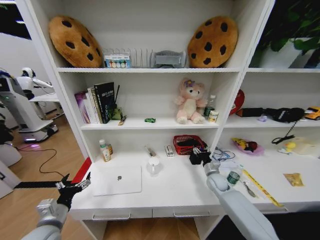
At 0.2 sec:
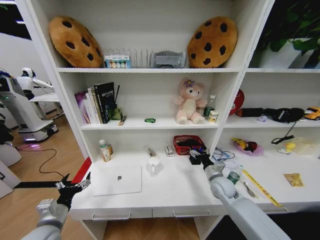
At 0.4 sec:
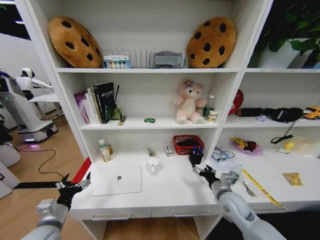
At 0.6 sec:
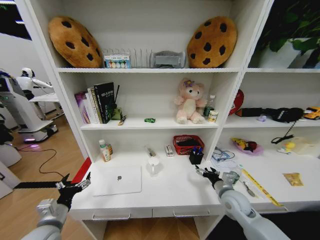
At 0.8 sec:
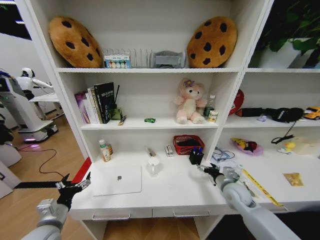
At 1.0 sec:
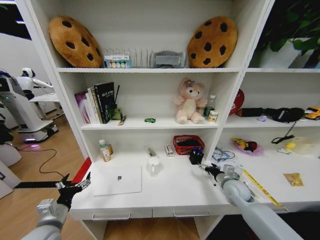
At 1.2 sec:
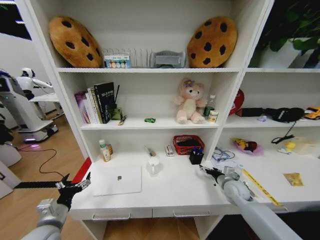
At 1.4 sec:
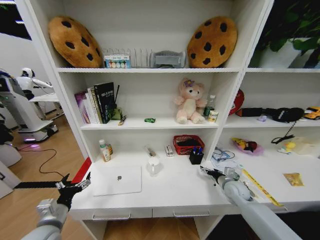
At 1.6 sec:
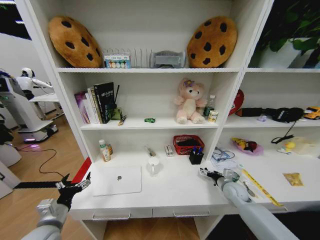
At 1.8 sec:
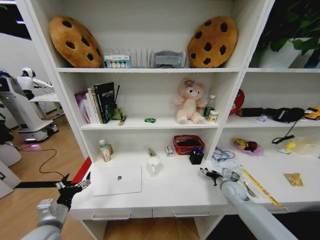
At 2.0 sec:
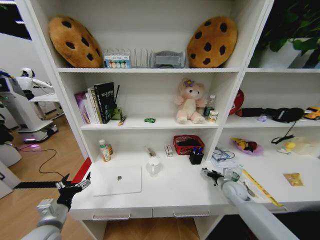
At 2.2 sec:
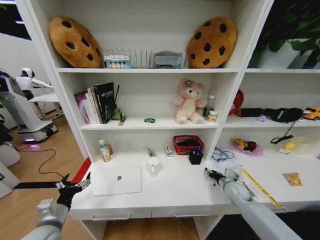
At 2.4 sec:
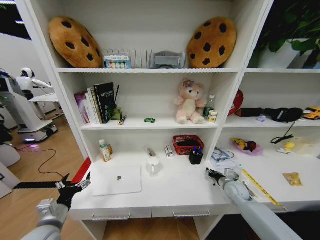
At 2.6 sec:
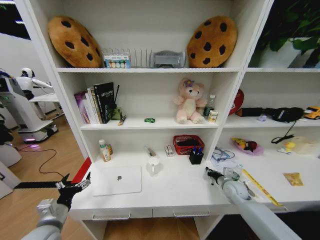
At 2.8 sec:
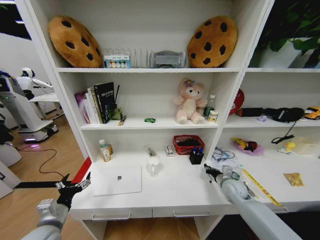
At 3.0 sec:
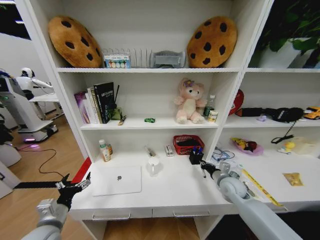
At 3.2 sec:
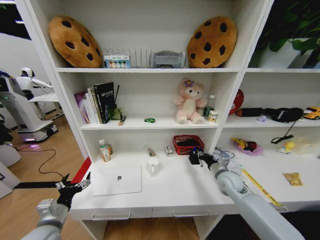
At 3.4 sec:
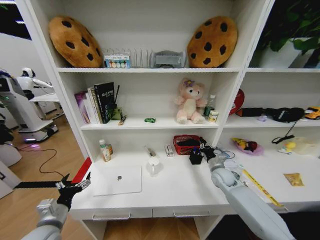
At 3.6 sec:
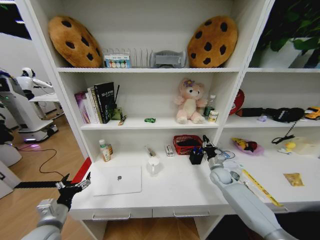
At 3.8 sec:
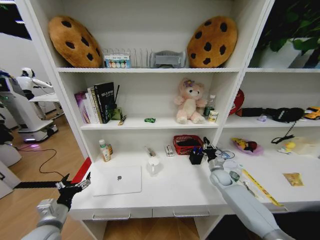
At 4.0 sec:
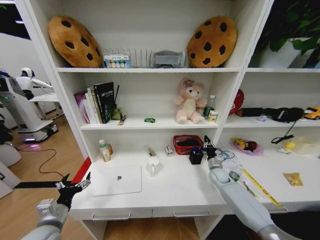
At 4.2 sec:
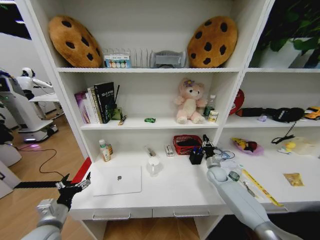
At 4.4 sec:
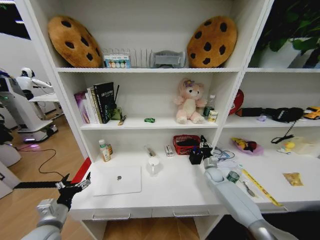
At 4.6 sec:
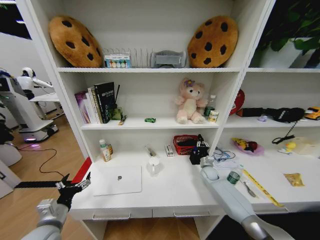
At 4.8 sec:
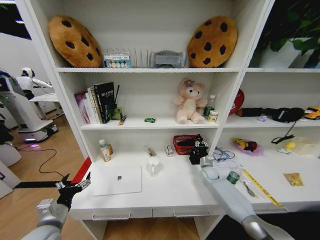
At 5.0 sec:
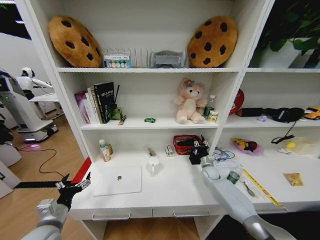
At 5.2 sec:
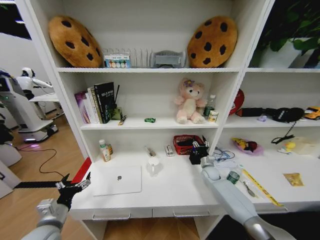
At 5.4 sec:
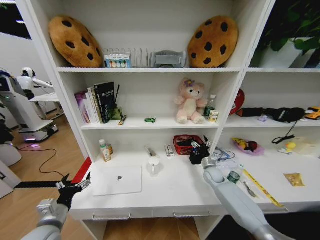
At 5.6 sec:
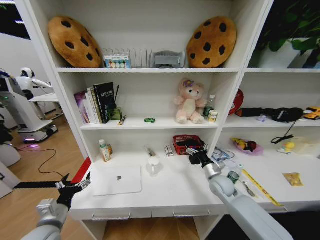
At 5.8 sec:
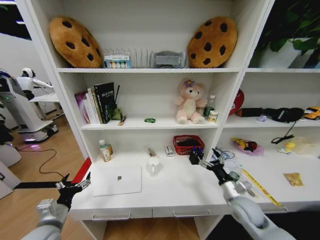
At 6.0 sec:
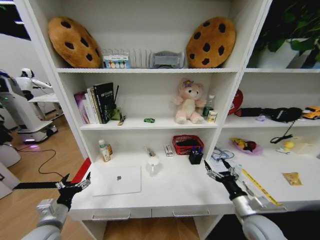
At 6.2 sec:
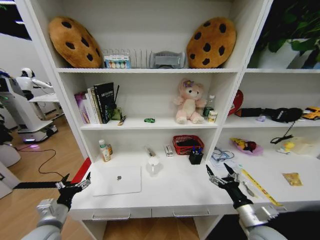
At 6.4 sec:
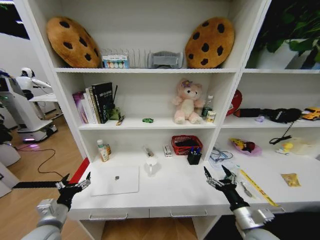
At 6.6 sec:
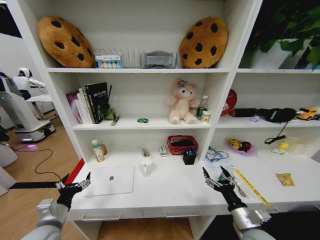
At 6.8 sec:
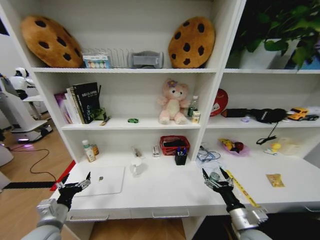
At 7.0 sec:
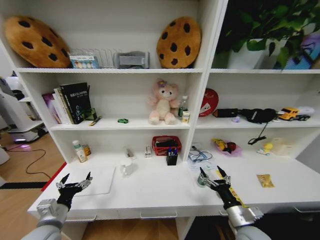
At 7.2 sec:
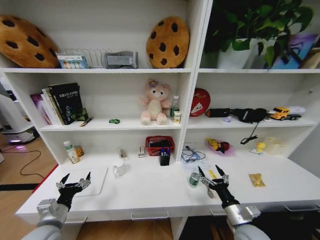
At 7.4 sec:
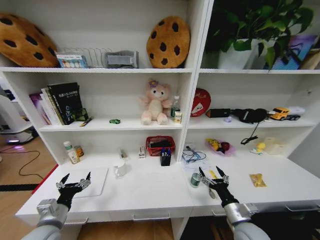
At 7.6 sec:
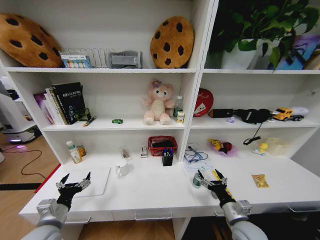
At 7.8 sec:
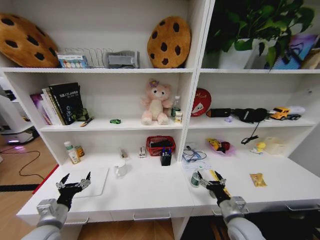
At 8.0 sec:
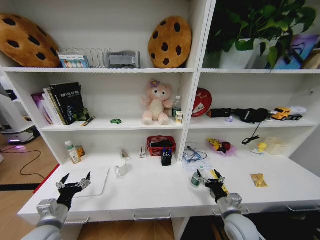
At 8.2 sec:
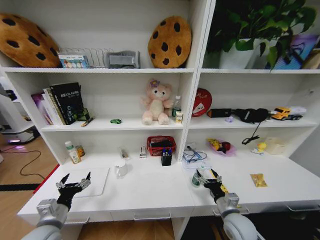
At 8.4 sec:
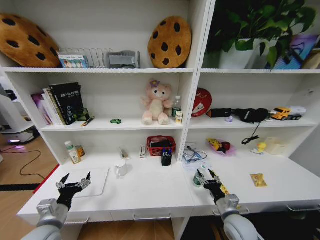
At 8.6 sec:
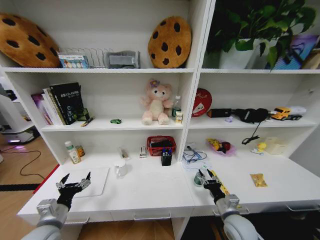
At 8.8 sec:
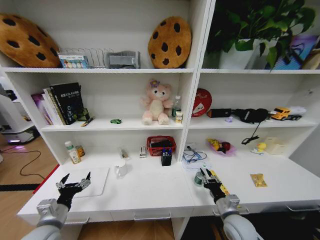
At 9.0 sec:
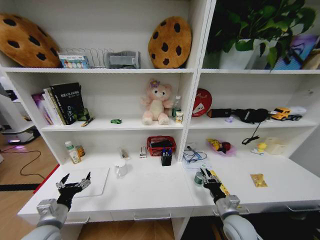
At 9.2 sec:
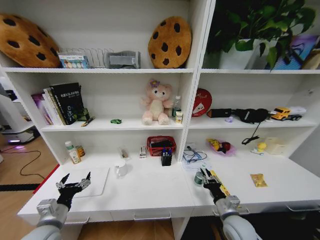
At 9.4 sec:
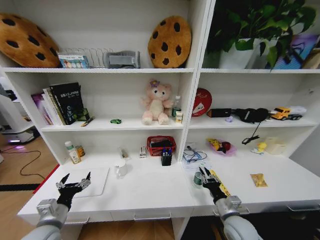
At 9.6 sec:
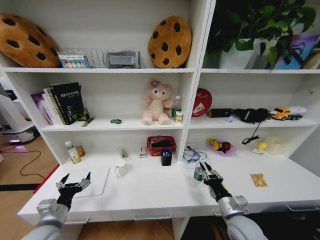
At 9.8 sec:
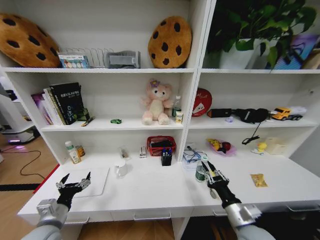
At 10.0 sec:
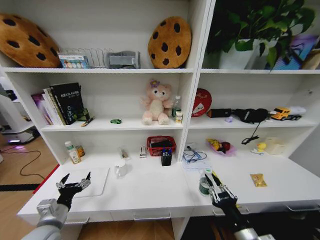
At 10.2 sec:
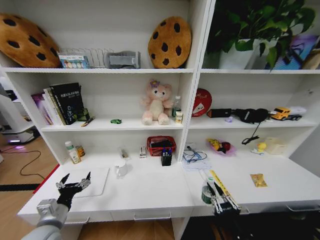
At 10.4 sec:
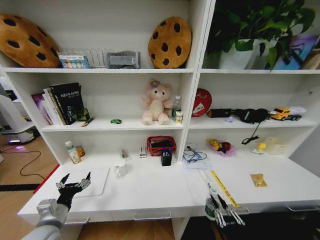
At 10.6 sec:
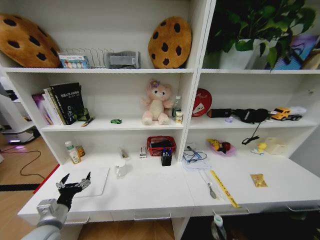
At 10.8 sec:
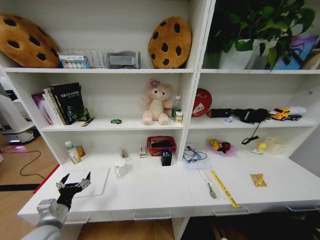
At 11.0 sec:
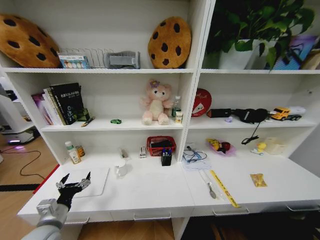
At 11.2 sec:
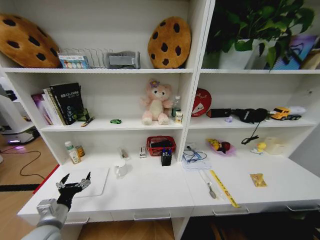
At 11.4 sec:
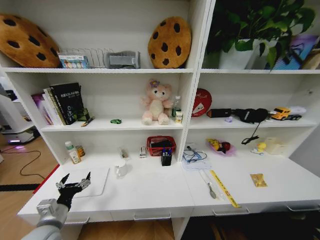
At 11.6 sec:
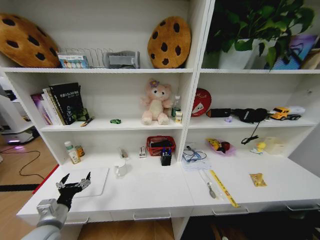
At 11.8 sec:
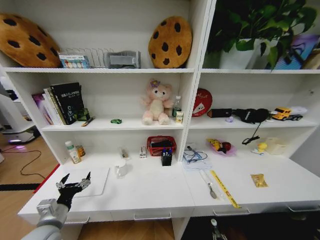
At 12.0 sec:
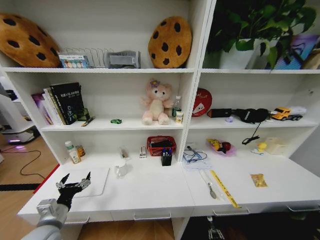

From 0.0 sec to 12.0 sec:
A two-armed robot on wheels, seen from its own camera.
Task of the whole recording: Organize the objects on the table.
From 0.0 sec to 1.6 sec: The right gripper goes about 10 cm backward and to the right, and opens.
From 1.6 sec to 3.0 sec: The right gripper ends up some 5 cm from where it was, and closes up.
From 3.0 sec to 4.4 sec: The right gripper heads forward and downward, covering roughly 15 cm.
From 4.4 sec to 6.0 sec: The right gripper goes some 25 cm backward, and opens its fingers.
From 7.6 sec to 9.0 sec: The right gripper closes its fingers.
From 9.0 sec to 10.4 sec: The right gripper shifts roughly 20 cm backward.
From 10.4 sec to 12.0 sec: The right gripper heads downward, covering some 35 cm.

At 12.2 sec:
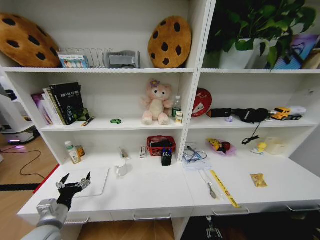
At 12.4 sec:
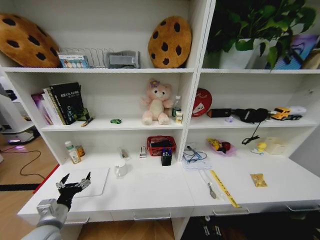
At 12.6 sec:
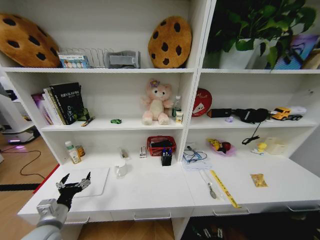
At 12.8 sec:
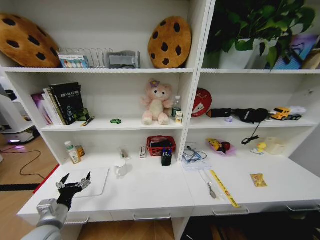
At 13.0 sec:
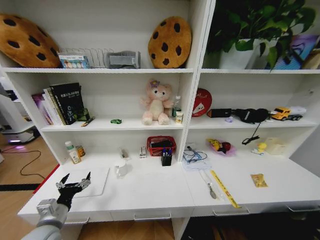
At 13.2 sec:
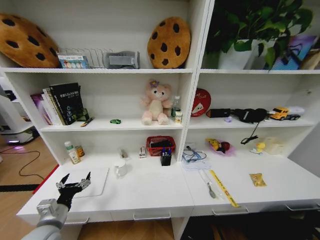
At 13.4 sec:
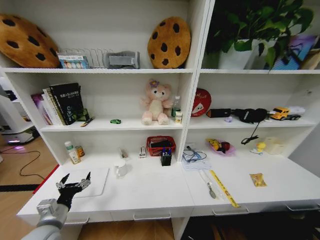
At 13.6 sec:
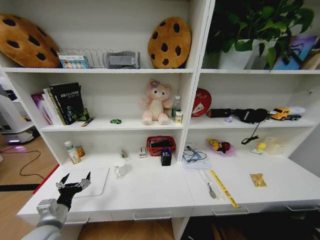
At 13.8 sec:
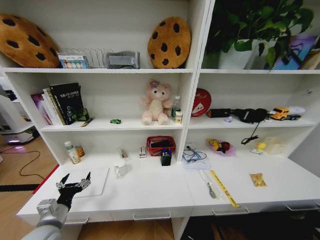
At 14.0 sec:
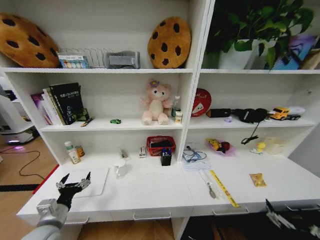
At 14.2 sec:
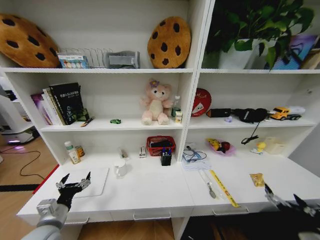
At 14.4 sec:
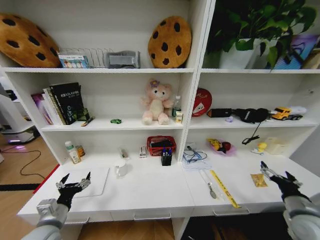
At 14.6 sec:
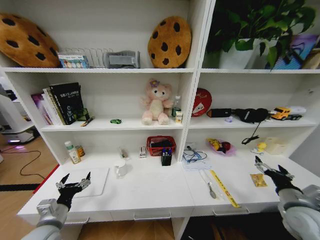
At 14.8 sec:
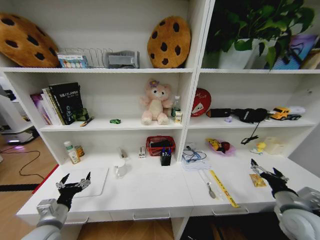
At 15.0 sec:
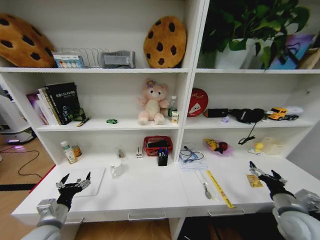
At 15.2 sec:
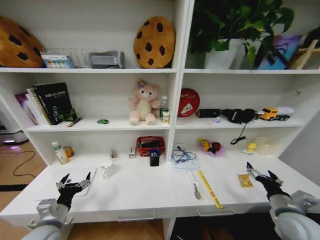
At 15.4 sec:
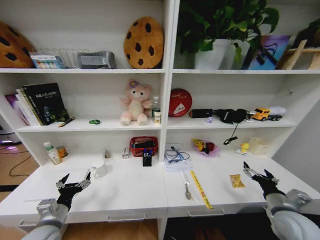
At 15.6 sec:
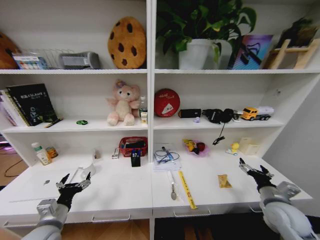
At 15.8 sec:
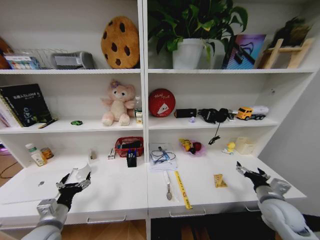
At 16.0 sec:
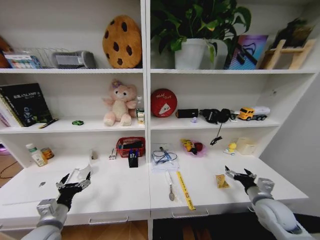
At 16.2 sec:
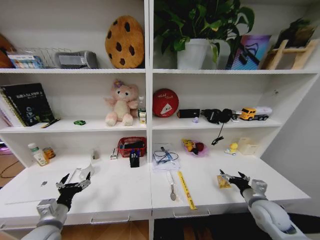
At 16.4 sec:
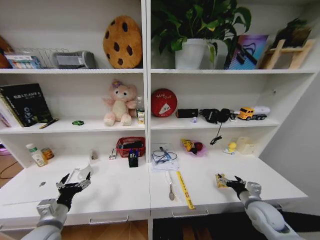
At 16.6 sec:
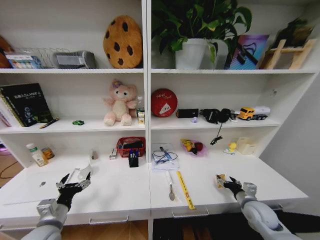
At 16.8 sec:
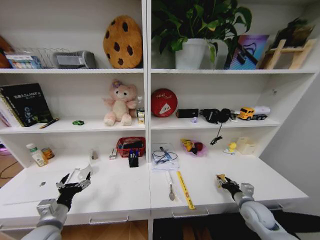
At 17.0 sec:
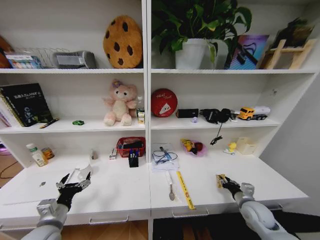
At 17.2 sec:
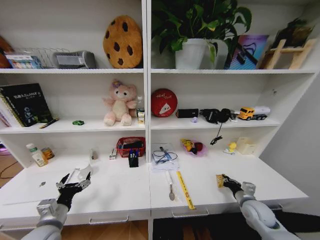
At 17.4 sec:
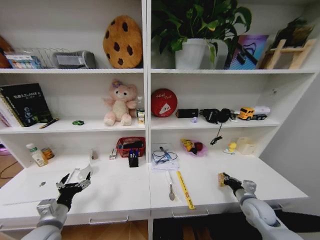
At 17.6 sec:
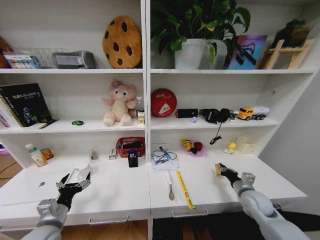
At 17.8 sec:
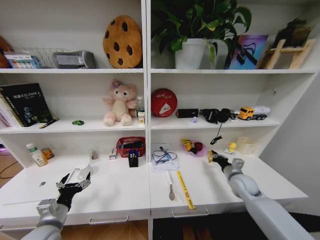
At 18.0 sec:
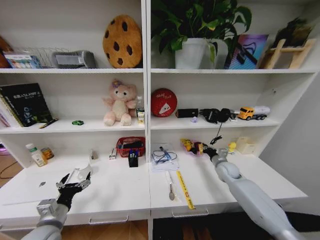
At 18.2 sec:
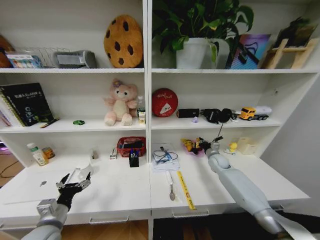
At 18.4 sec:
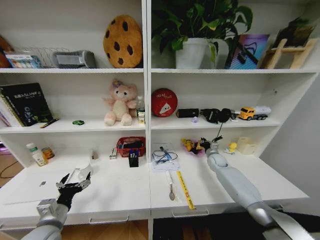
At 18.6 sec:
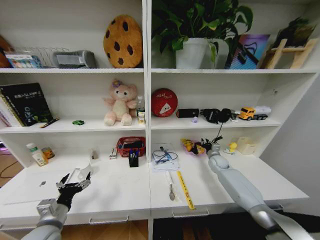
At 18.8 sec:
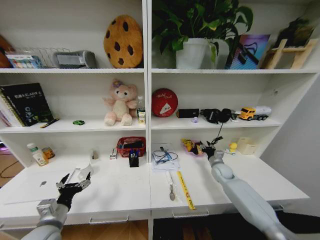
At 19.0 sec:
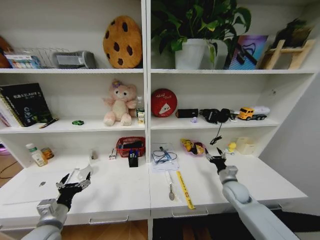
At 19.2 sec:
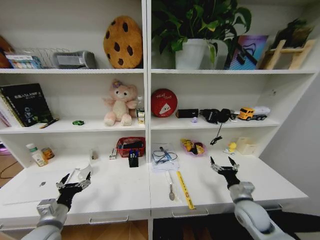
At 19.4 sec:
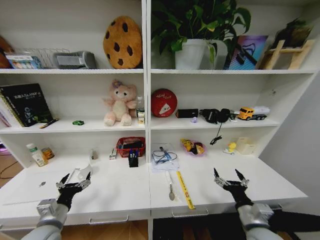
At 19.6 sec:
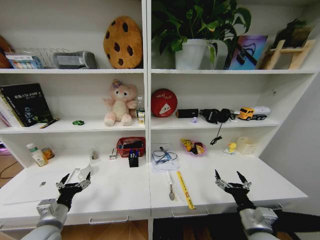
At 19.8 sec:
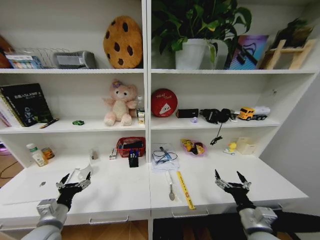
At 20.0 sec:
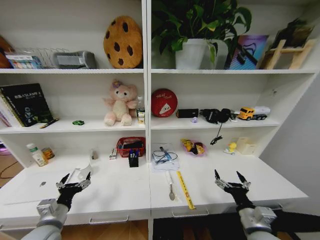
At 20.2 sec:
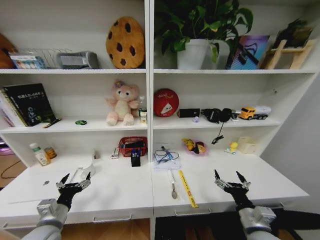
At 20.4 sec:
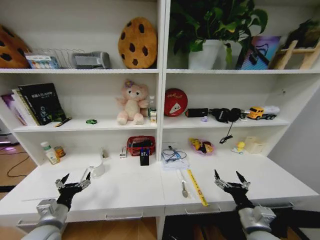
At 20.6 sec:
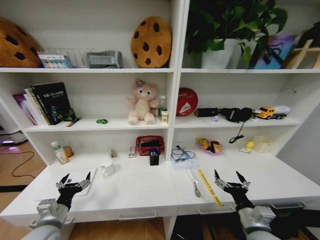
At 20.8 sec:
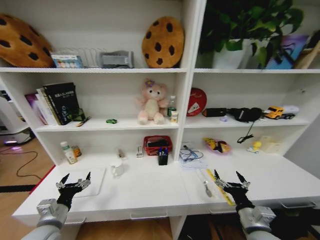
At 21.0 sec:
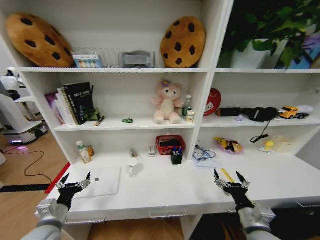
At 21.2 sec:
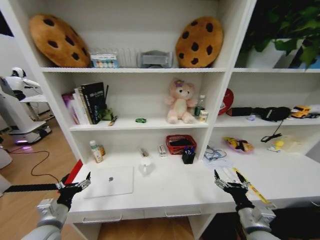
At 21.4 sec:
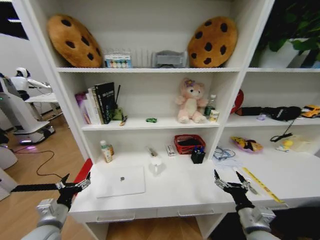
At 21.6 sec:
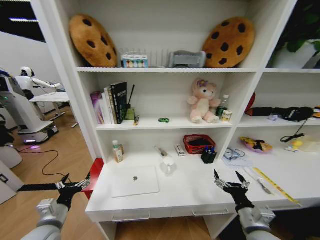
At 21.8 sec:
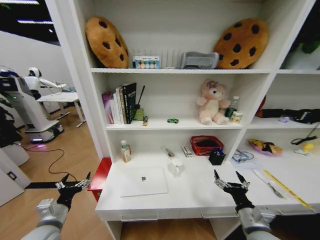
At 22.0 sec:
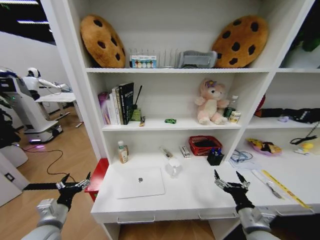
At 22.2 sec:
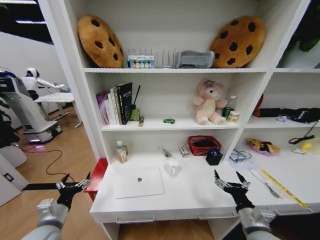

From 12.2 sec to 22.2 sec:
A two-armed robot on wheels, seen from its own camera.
Task of the whole recording: Organize the objects on the table.
From 12.2 sec to 13.6 sec: The right gripper is displaced upward and backward by approximately 30 cm, and opens.
From 13.6 sec to 15.0 sec: The right gripper is displaced forward and upward by some 35 cm.
From 15.0 sec to 16.4 sec: The right gripper travels downward and forward by approximately 10 cm.
From 16.4 sec to 18.0 sec: The right gripper travels forward by approximately 20 cm, and closes up.
From 18.0 sec to 19.4 sec: The right gripper goes about 25 cm backward, and opens its fingers.
